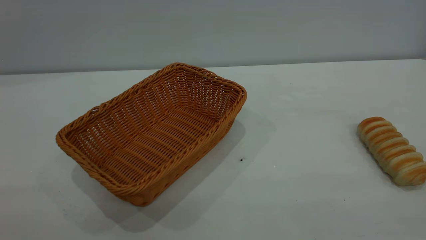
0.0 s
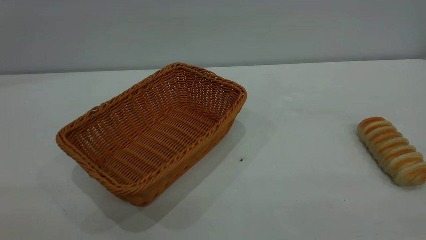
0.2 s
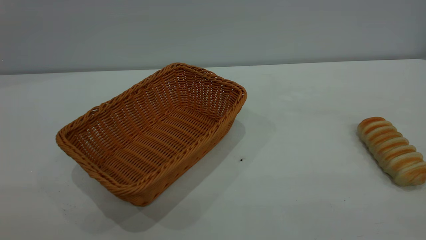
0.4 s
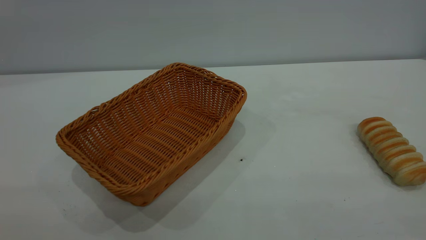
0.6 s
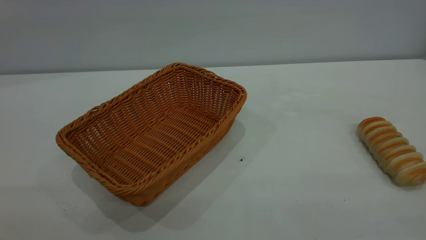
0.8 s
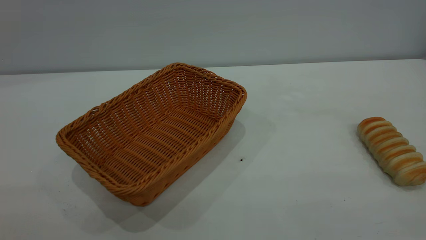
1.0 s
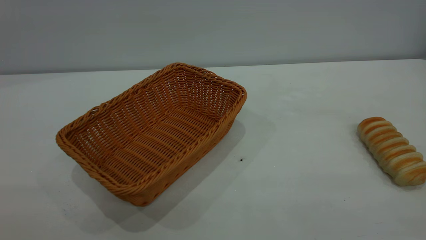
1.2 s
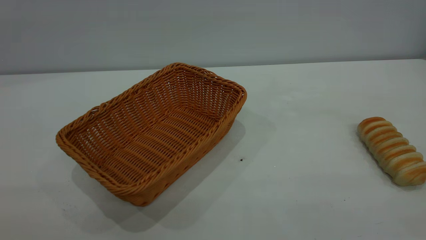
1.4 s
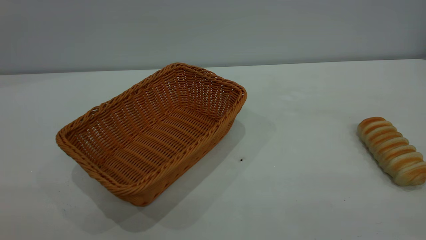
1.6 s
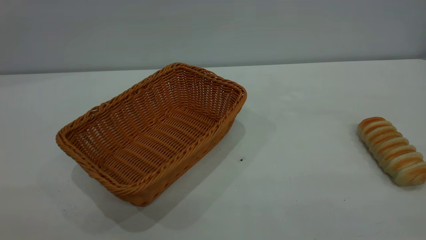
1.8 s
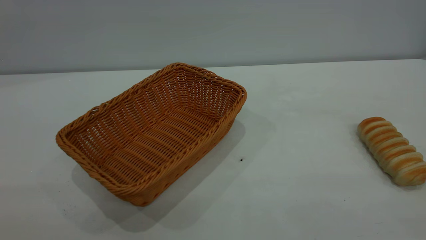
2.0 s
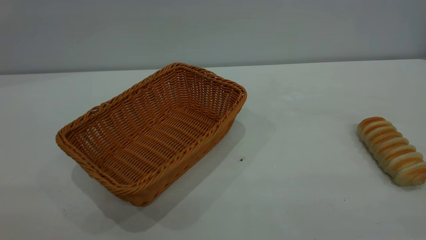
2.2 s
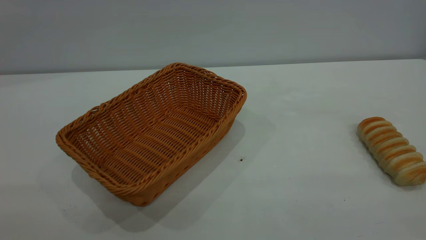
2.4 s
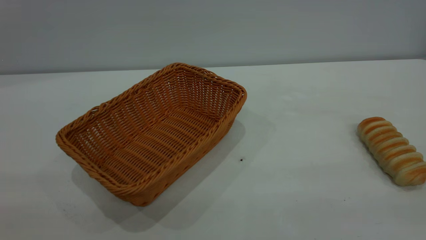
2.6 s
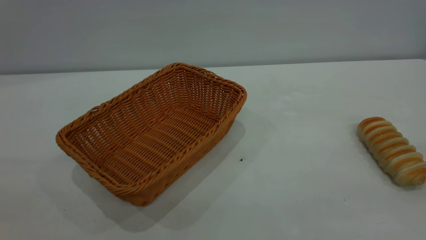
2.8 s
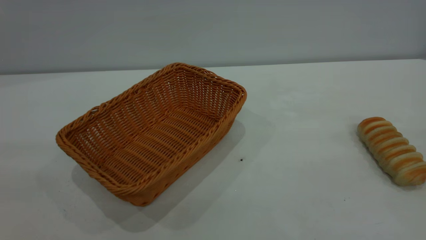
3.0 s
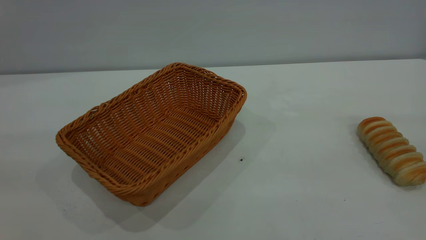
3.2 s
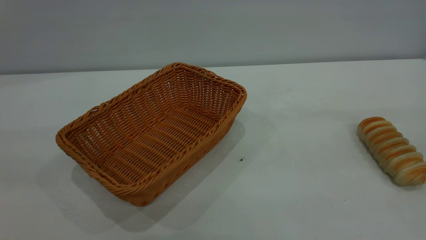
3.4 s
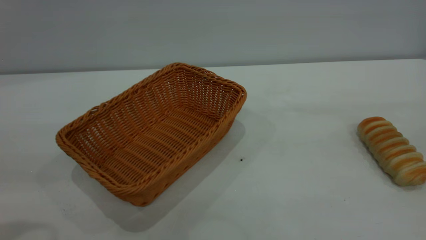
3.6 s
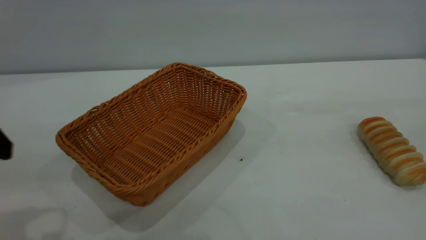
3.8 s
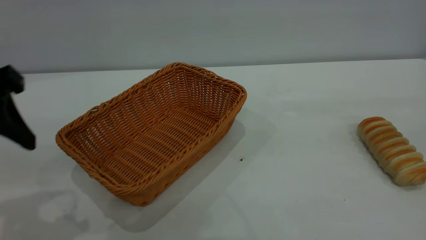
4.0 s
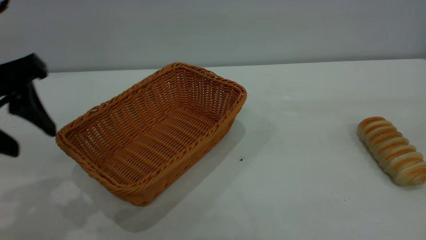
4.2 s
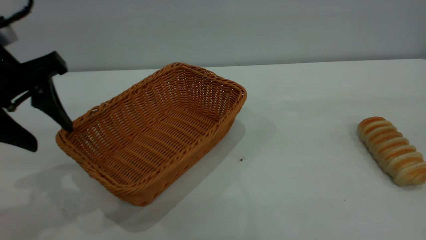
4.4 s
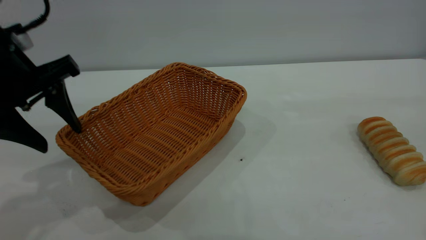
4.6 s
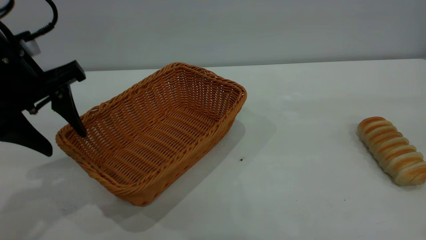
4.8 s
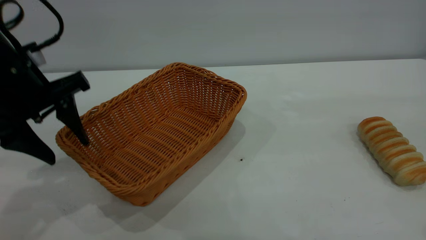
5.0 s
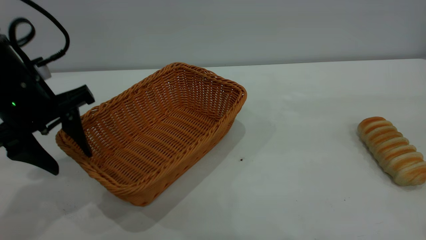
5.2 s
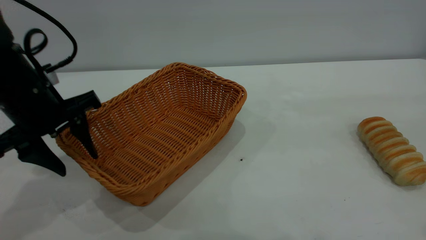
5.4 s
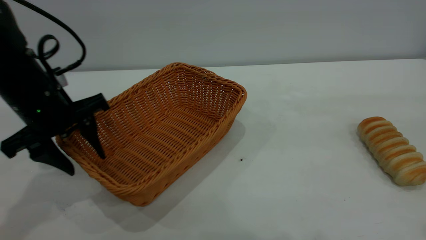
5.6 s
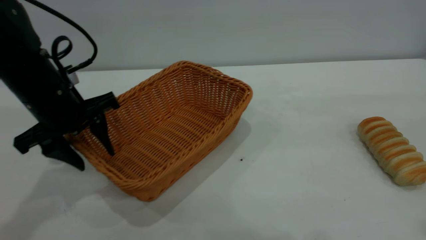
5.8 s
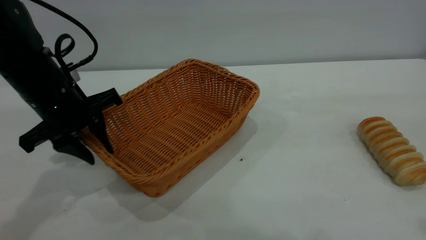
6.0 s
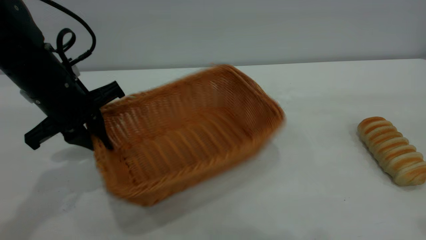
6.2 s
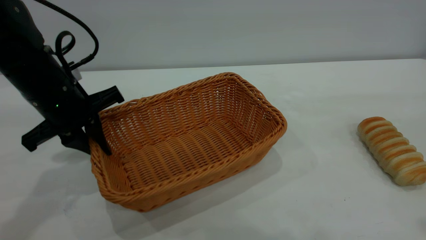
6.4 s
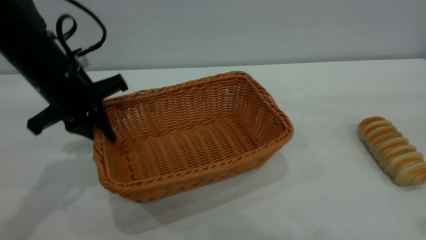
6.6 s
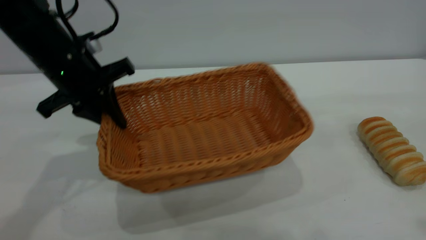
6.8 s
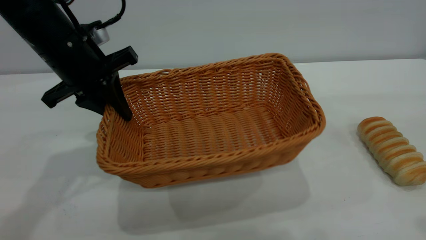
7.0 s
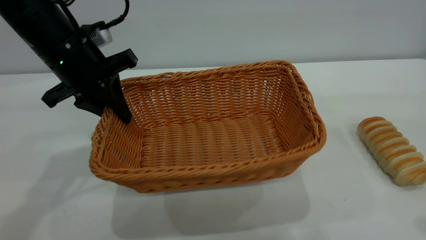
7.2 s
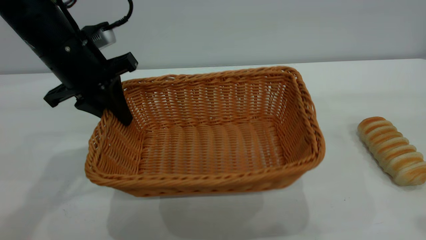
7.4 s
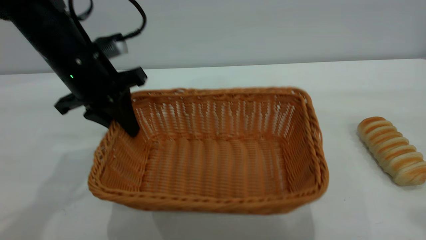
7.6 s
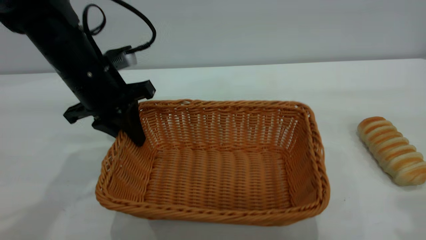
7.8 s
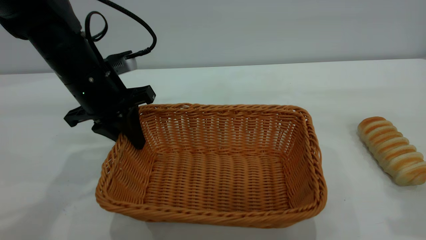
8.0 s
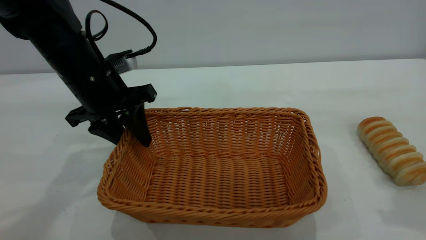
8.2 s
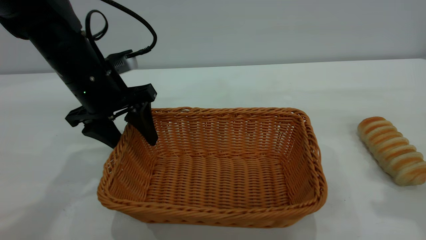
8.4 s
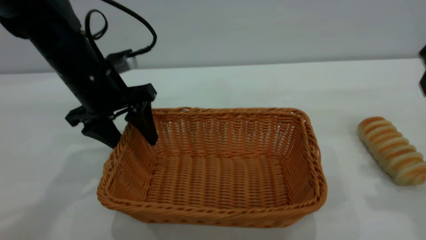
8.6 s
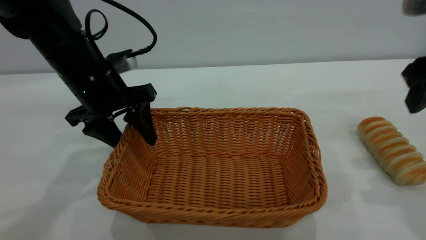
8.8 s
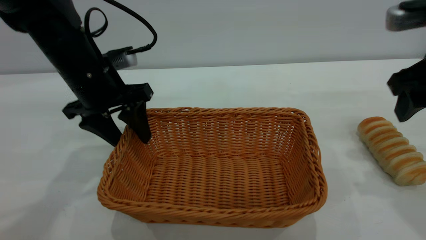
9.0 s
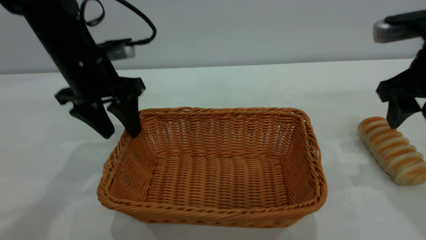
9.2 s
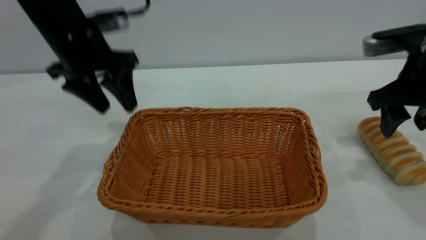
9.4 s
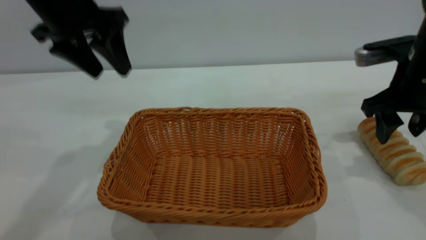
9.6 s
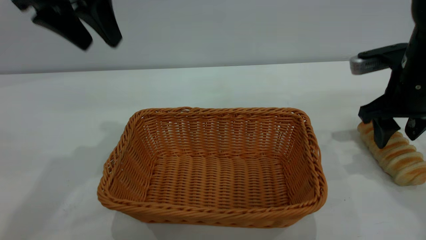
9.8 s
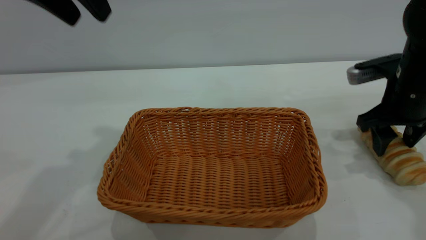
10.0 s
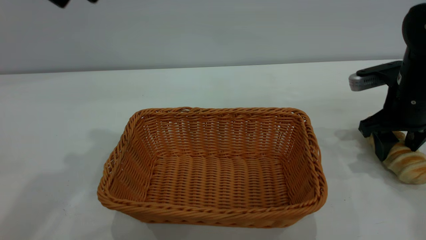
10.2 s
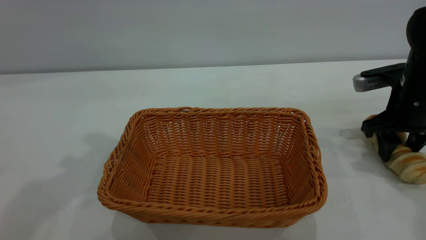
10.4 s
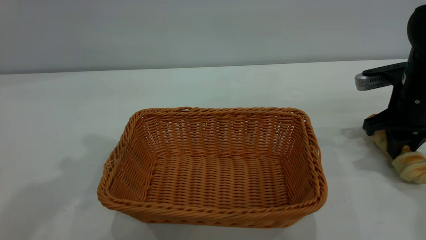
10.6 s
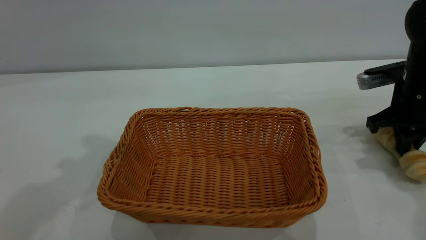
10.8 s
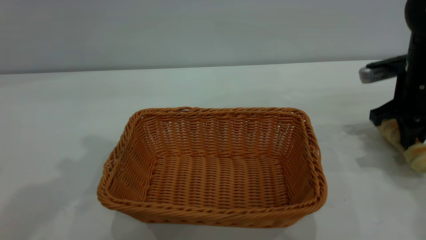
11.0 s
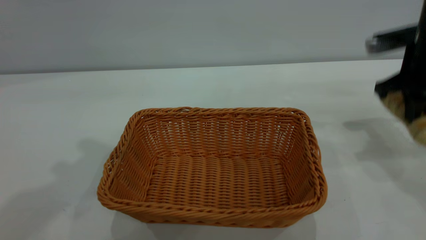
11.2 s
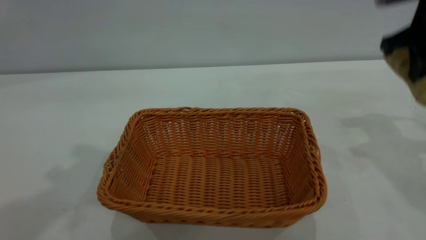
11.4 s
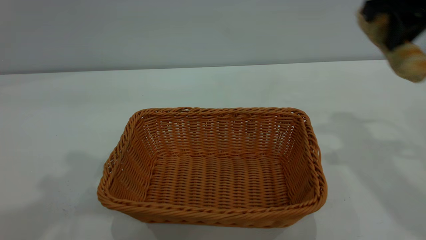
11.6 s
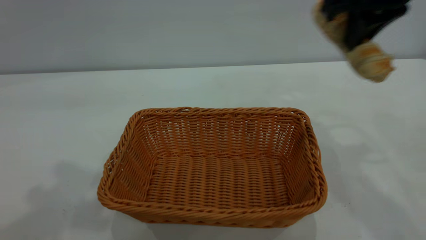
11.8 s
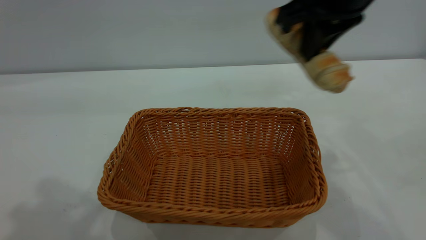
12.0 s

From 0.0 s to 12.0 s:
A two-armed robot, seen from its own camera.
Task of the whole recording: One hand grasps the yellow basket and places it in the middle of the table, while the other hand picks up the long bread and puts it into the yellow basket.
Step, from 0.0 s to 9.2 s: Move the basket to the center of view.
From 0.0 s to 1.6 s: Both grippers stay put.
From 3.0 s to 4.4 s: The left gripper goes some 25 cm forward and downward.
From 4.4 s to 6.0 s: The left gripper goes approximately 10 cm downward and forward, and closes.
From 6.0 s to 7.6 s: The left gripper changes place by approximately 5 cm.
From 7.6 s to 9.0 s: The left gripper opens. The right gripper goes some 20 cm downward and forward.
From 9.0 s to 10.4 s: The right gripper shifts roughly 10 cm downward and forward. Meanwhile the left gripper heads upward, covering about 25 cm.
From 10.4 s to 12.0 s: The right gripper shifts roughly 25 cm upward and to the left, and closes up.

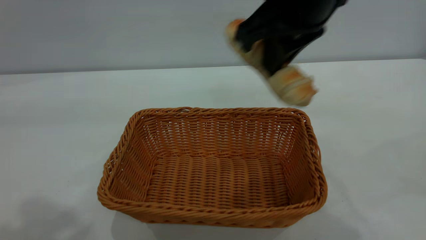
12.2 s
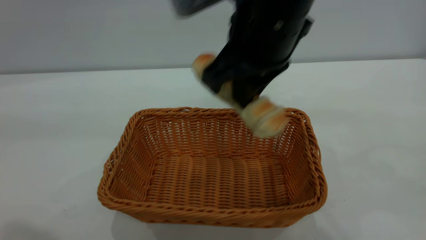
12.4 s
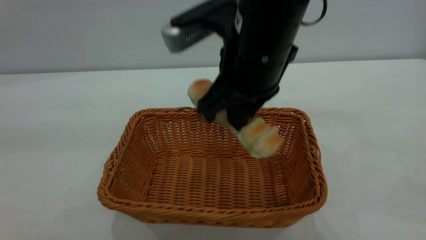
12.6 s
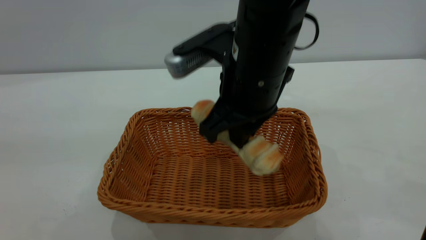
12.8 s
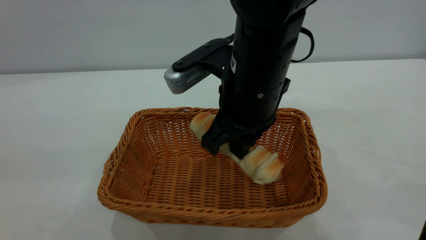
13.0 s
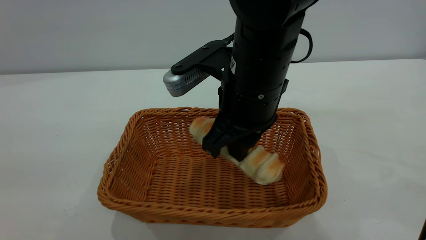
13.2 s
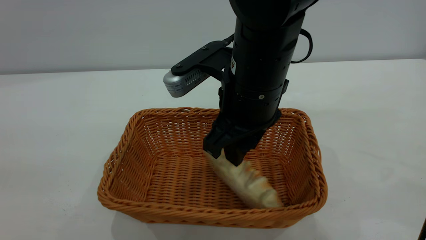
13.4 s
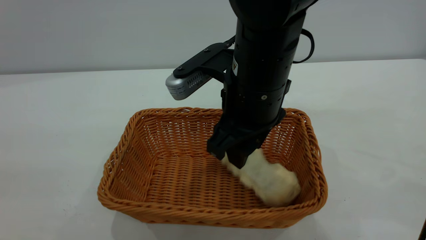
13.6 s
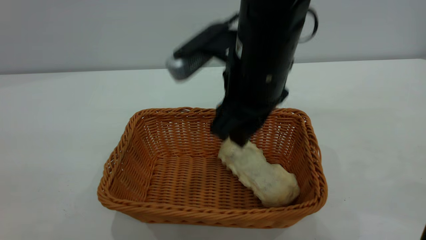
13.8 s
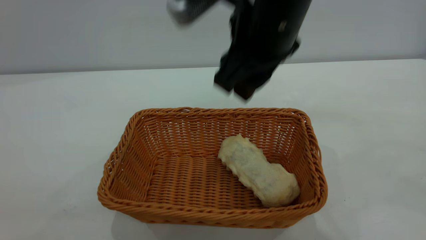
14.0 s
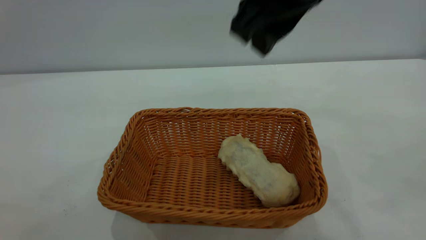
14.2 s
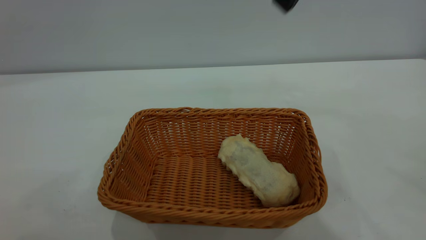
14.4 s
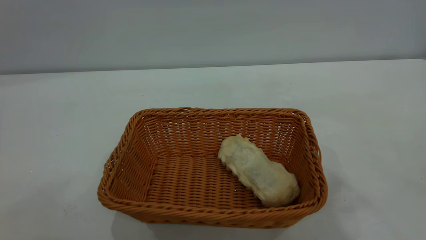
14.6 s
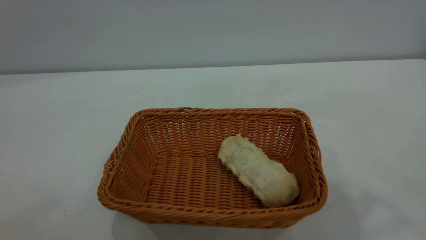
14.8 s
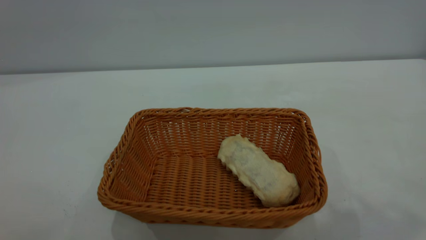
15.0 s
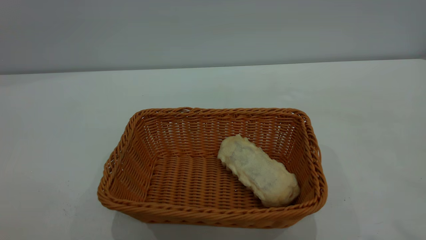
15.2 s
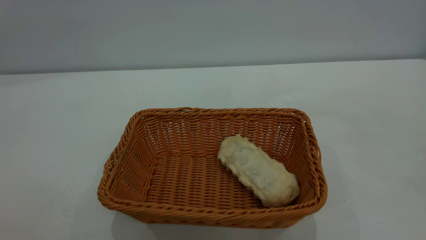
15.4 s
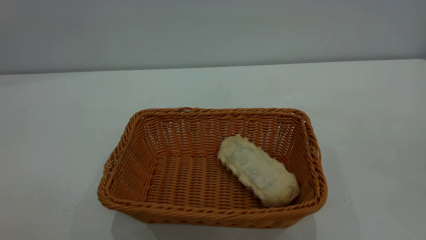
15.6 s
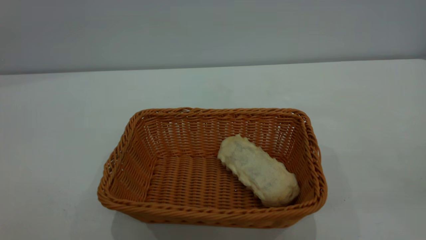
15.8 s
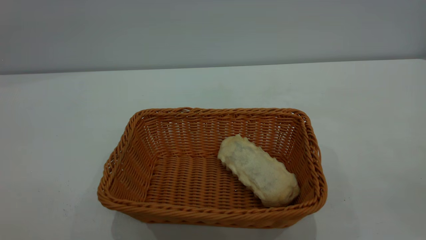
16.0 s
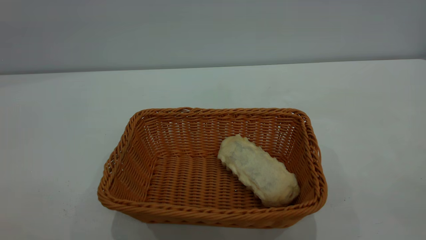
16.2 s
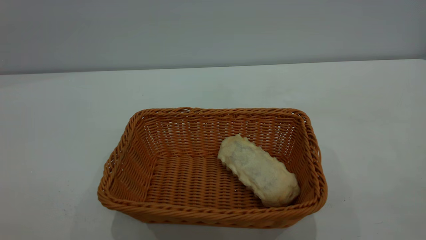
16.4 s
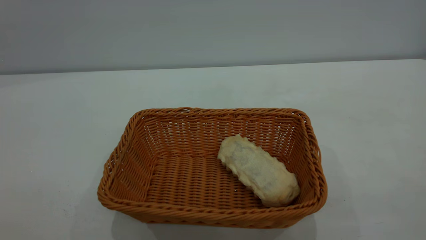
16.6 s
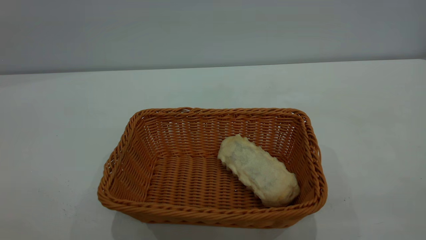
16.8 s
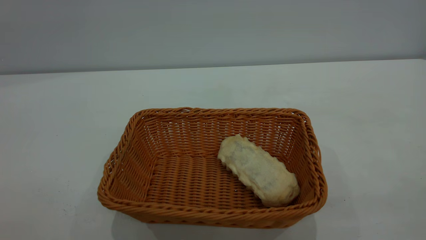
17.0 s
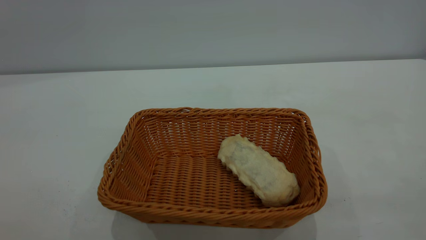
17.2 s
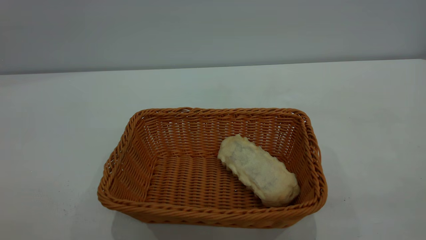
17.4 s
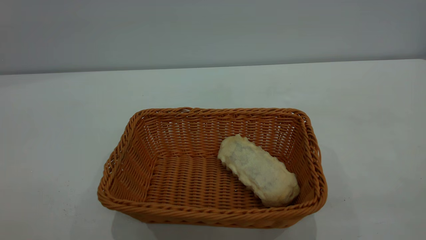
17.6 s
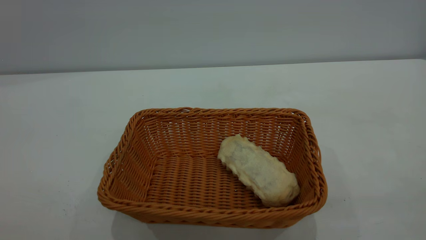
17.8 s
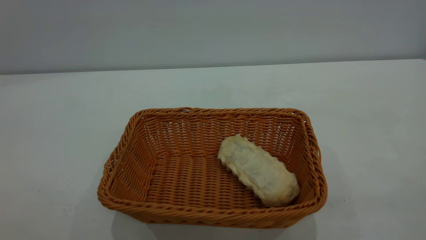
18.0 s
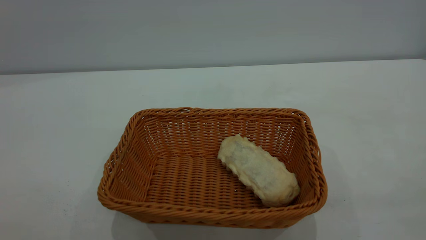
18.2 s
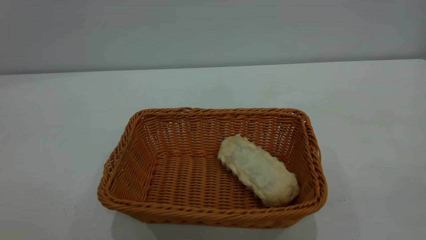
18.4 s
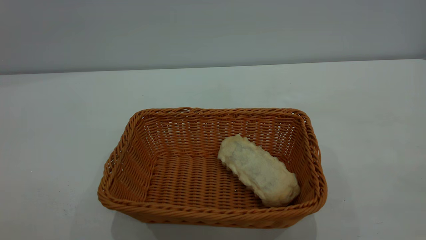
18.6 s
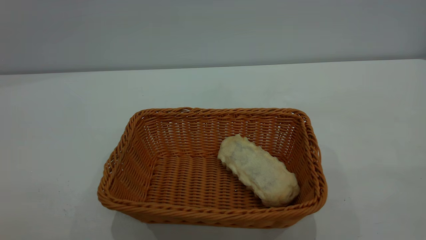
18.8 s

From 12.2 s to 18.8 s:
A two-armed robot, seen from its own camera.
Task of the whole recording: One hand grasps the yellow basket and places it in the middle of the table, while the other hand picks up the long bread and puts it into the yellow basket.
Step, from 12.2 s to 13.8 s: place the bread into the basket.
From 12.2 s to 13.8 s: The left gripper travels backward by about 15 cm, while the right gripper travels downward by some 5 cm, and opens up.
From 13.8 s to 15.4 s: The left gripper heads backward and downward, covering some 10 cm; the right gripper heads upward, to the right and backward, covering approximately 40 cm.
